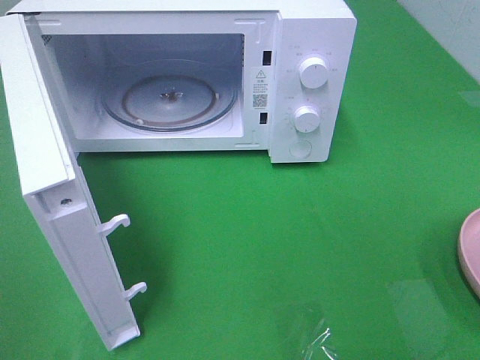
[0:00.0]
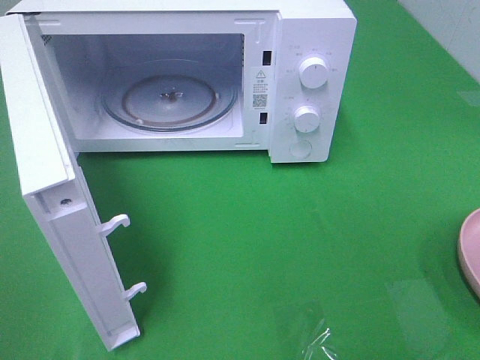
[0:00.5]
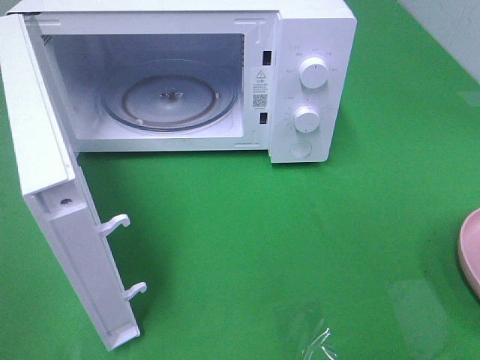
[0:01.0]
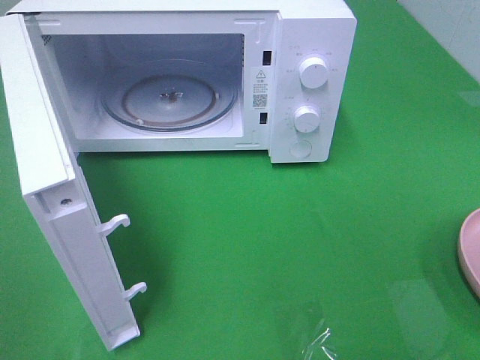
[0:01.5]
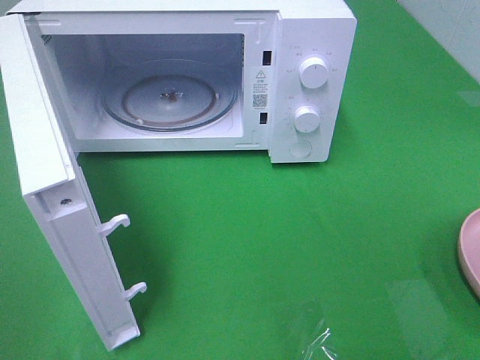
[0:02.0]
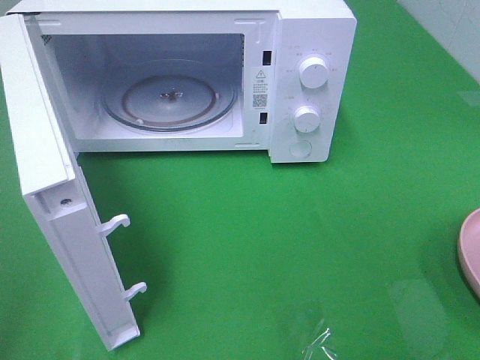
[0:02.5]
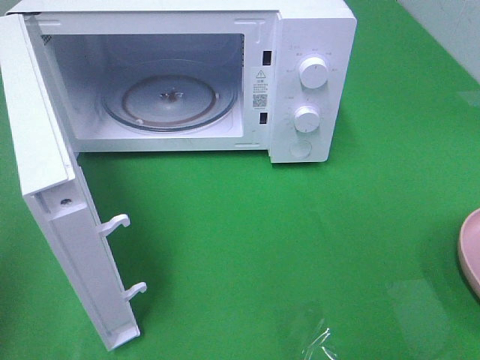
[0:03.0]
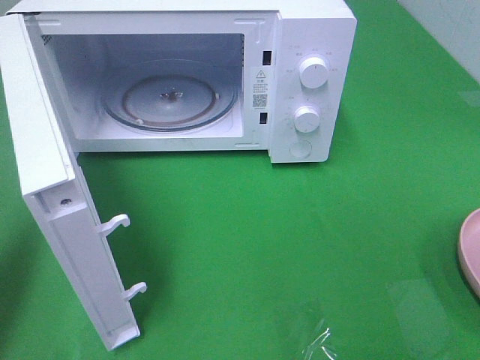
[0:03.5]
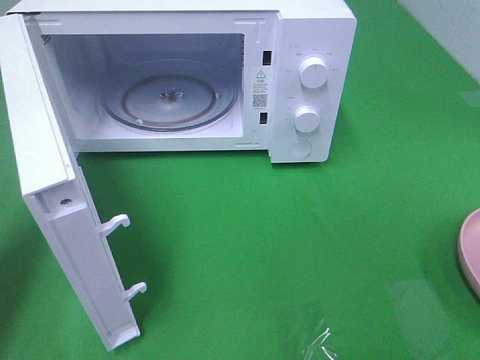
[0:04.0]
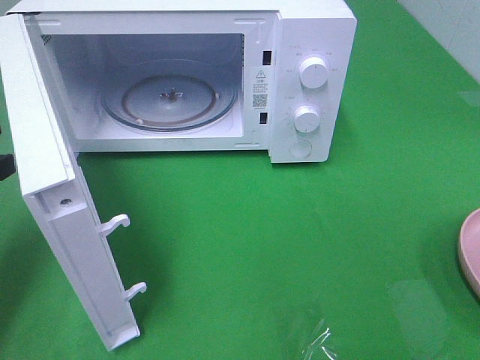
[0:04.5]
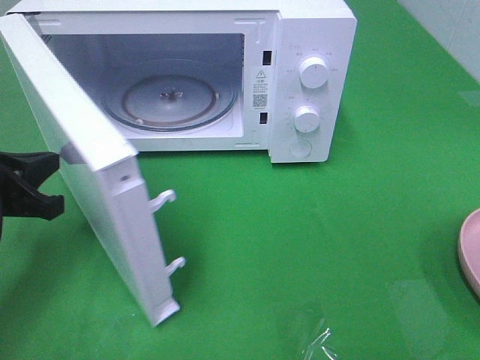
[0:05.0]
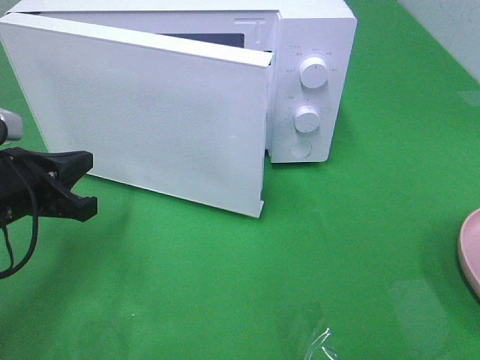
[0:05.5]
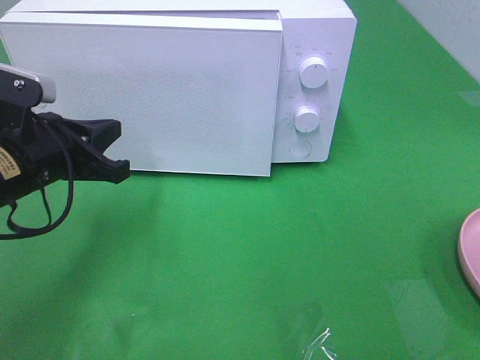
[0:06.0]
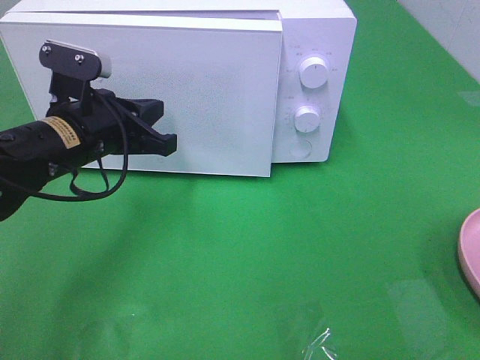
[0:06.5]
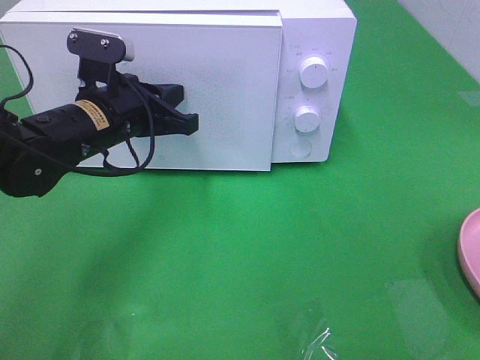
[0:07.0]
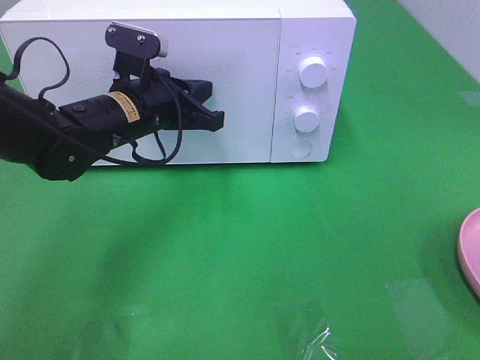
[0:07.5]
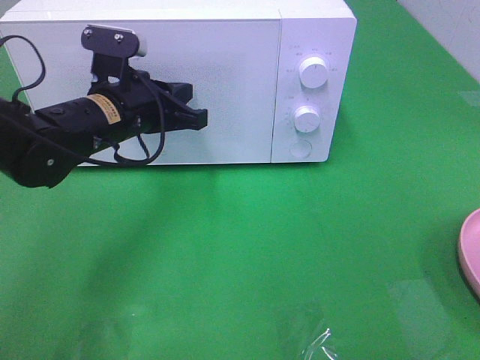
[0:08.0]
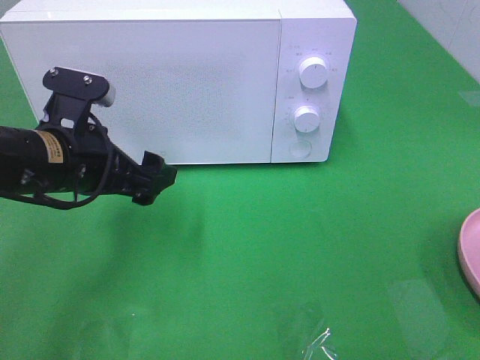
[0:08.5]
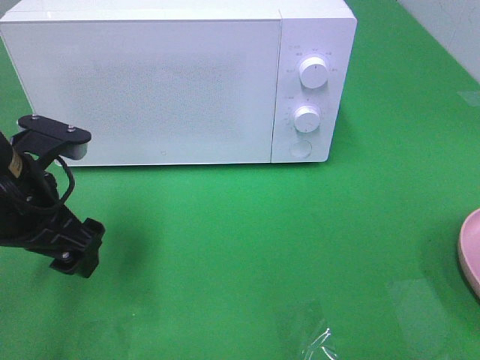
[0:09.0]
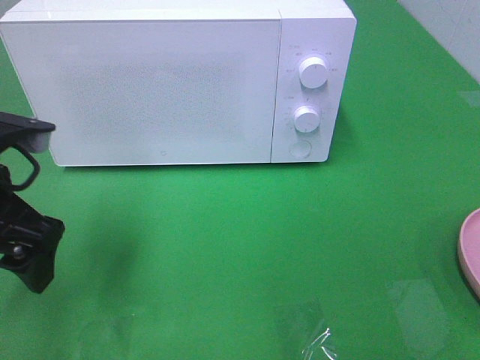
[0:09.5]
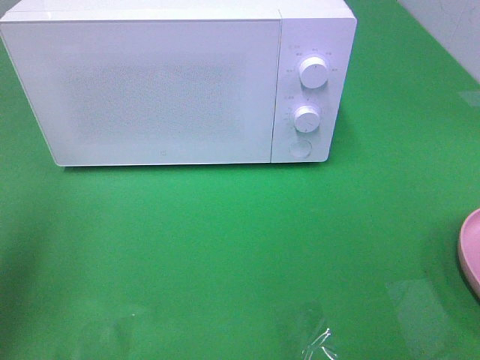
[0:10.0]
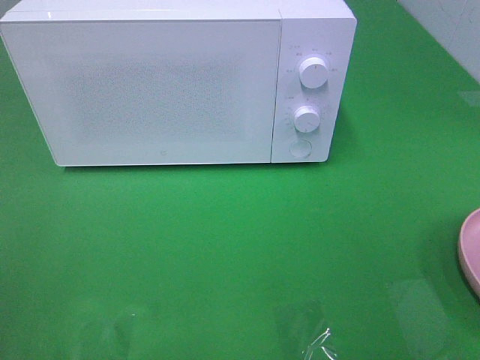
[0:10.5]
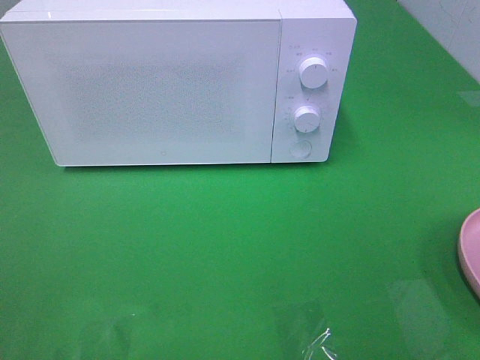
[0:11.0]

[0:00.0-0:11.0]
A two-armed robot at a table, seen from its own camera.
Task of the whole recording: Heat the burger.
Step, 0:00.0 to 0:08.0: Left hand: close the microwave door.
0:00.0 to 0:02.0: The two grippers keep their place.
0:02.0 to 0:03.5: The left gripper travels forward by about 20 cm, and closes its fingers.
0:03.5 to 0:05.5: The left gripper heads downward, to the right and forward, covering about 20 cm.
0:05.5 to 0:07.5: The left gripper shifts roughly 15 cm to the right and forward.
0:07.5 to 0:09.0: The left gripper shifts roughly 15 cm backward and to the left, and opens its fingers.
0:09.0 to 0:11.0: The left gripper travels backward, to the left and upward by some 30 cm.

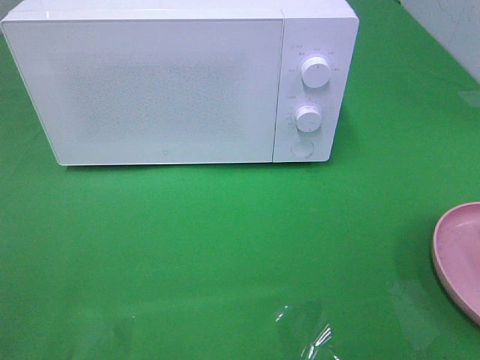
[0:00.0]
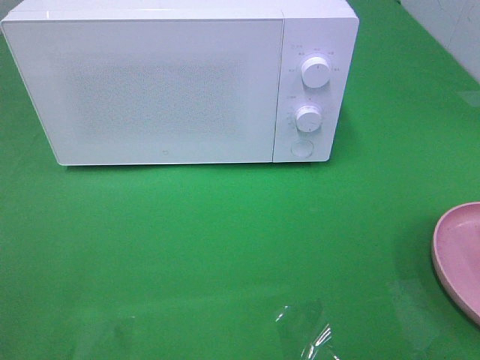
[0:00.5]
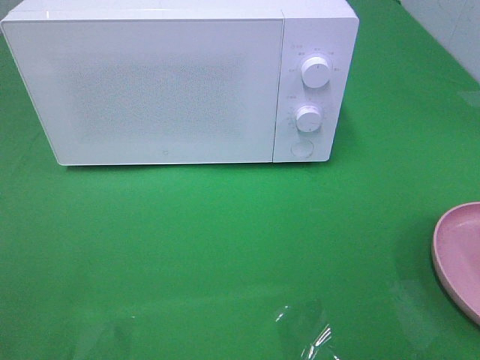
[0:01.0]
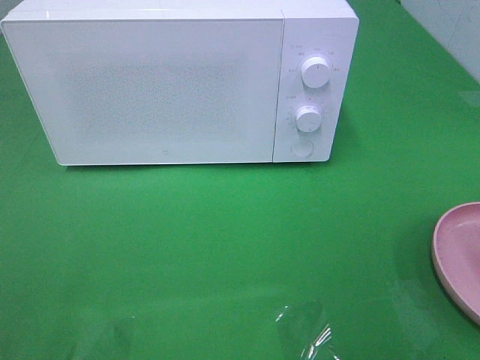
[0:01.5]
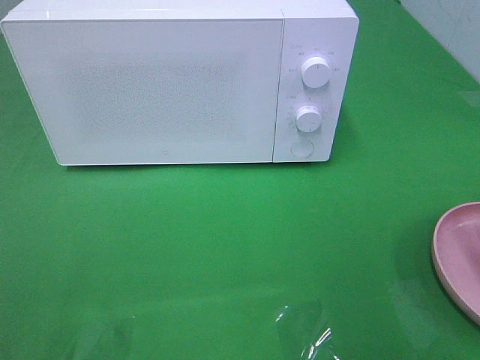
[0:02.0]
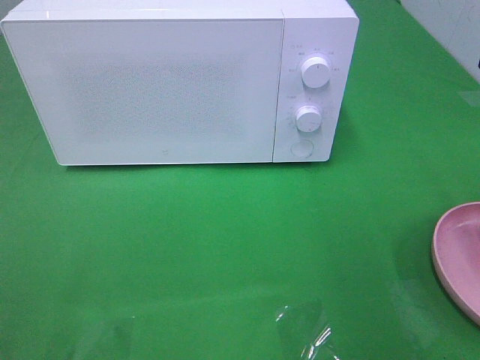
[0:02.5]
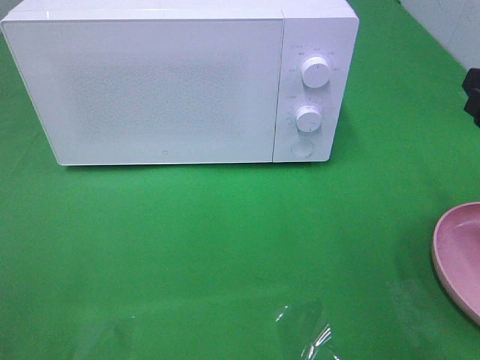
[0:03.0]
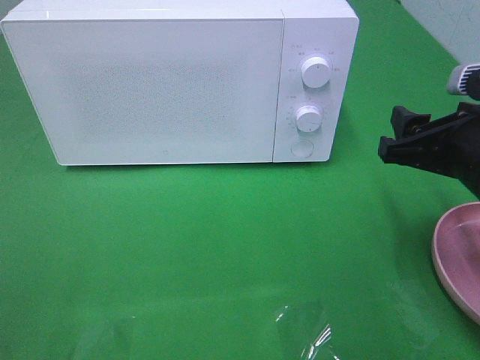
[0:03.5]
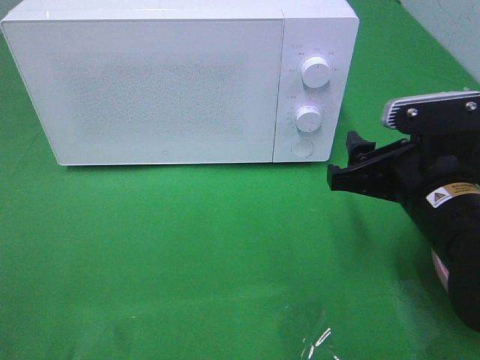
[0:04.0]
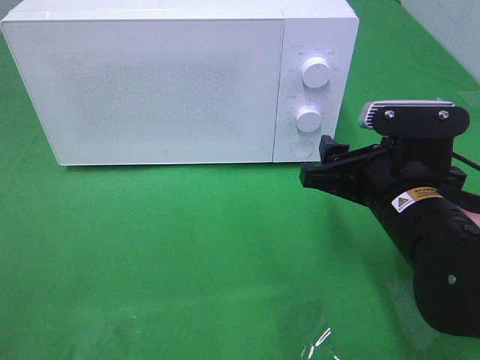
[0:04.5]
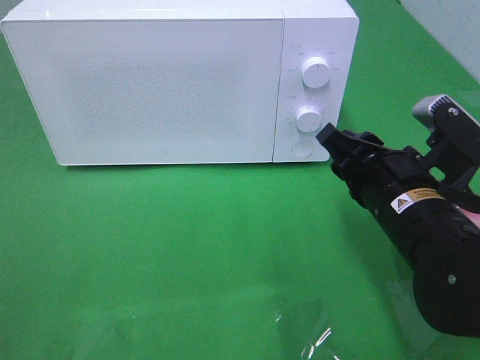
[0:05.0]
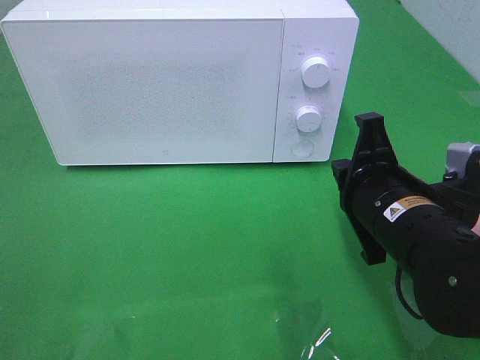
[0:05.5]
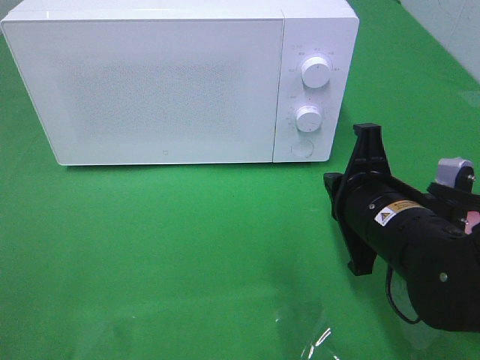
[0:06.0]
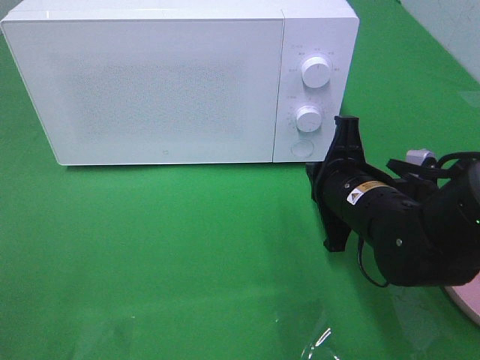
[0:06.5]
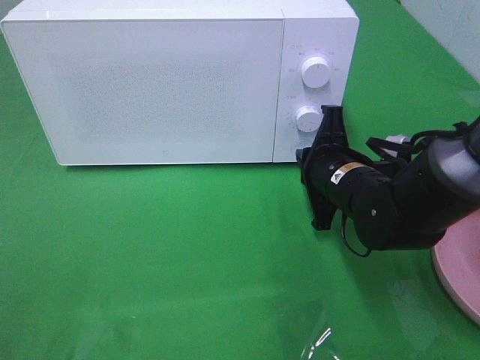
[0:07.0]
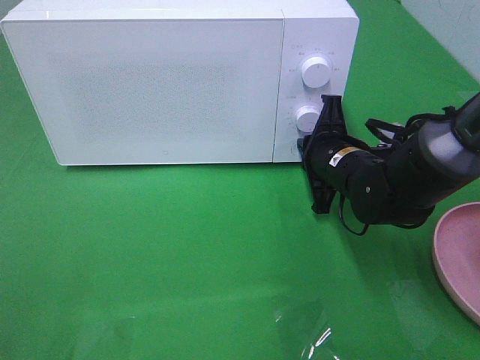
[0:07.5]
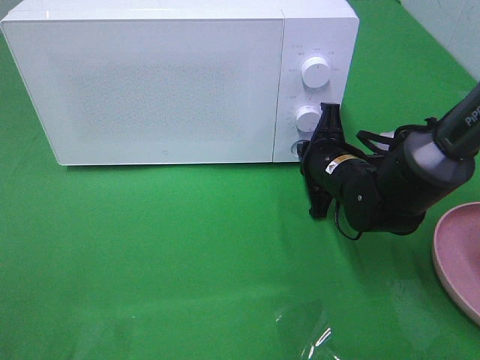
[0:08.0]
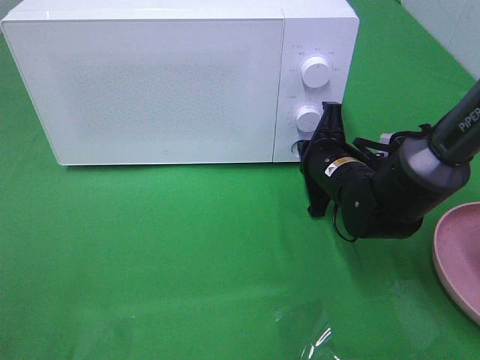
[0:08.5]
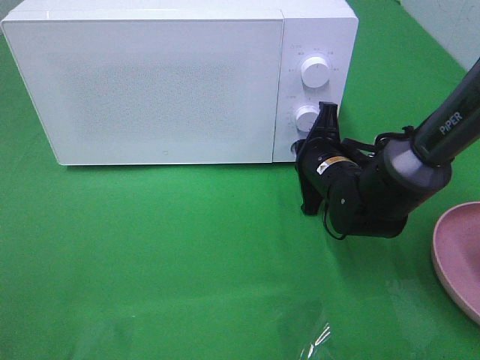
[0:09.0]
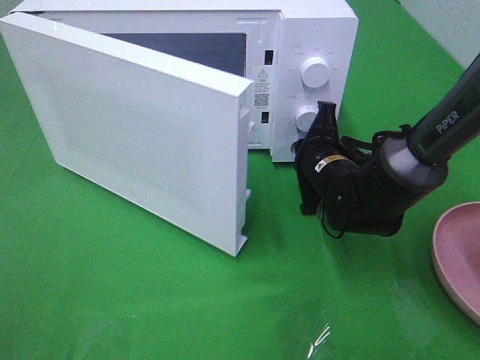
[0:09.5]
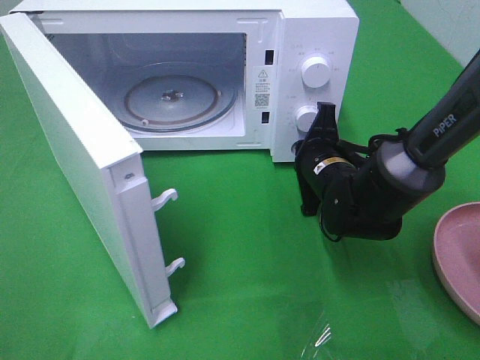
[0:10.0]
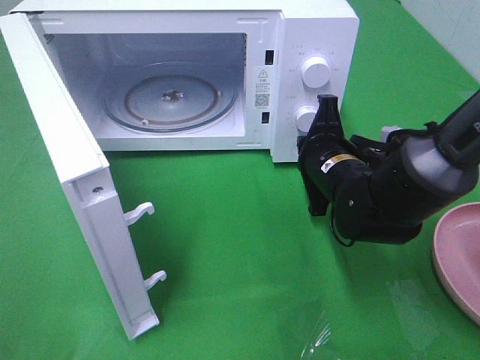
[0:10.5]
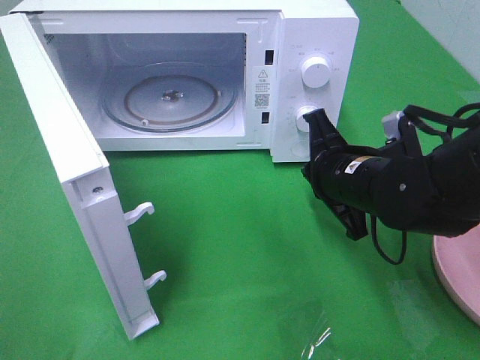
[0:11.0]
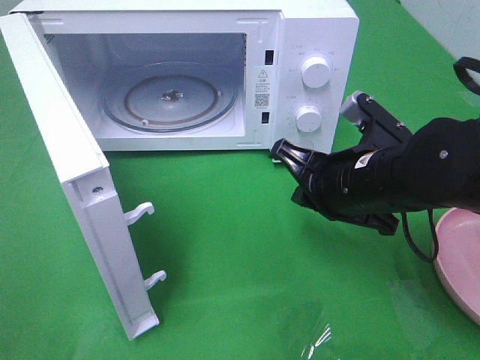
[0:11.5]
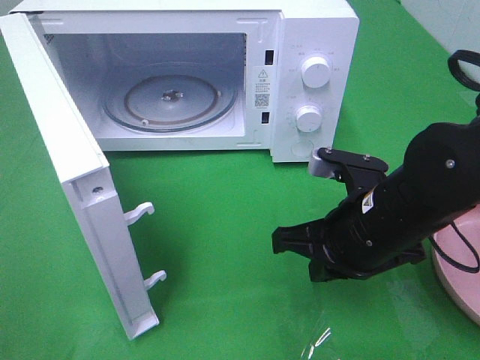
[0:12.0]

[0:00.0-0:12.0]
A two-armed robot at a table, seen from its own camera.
Task of the whole recording: Heat the burger.
Step, 0:00.0 to 0:10.5: Right hand: press the switch.
0:02.0 to 0:04.0: The right gripper shifts some 20 cm downward, to the left and forward.
0:04.0 to 0:06.0: The right gripper closes its fingers.
0:06.0 to 0:08.0: The right gripper goes about 15 cm forward and downward.
0:10.0 to 0:12.0: The right gripper moves backward and upward, some 15 cm.

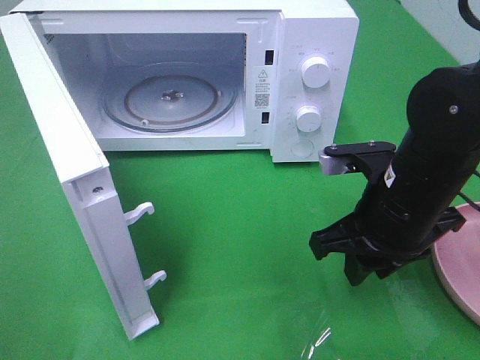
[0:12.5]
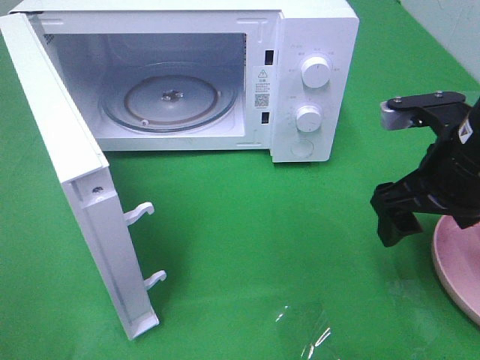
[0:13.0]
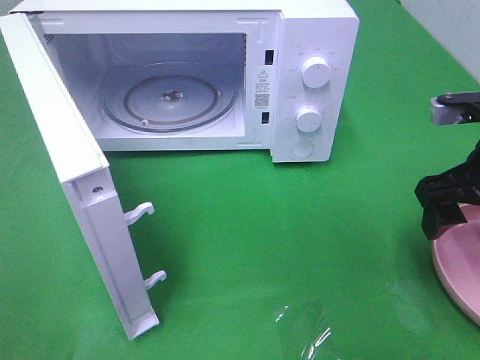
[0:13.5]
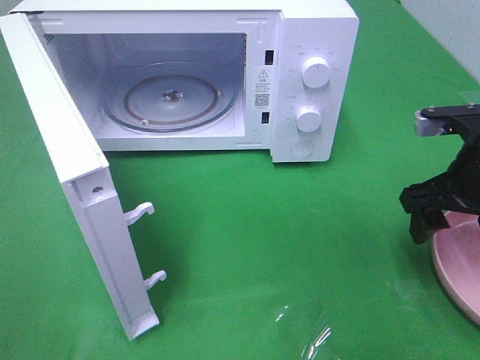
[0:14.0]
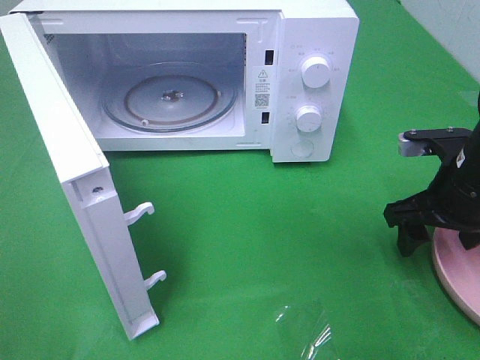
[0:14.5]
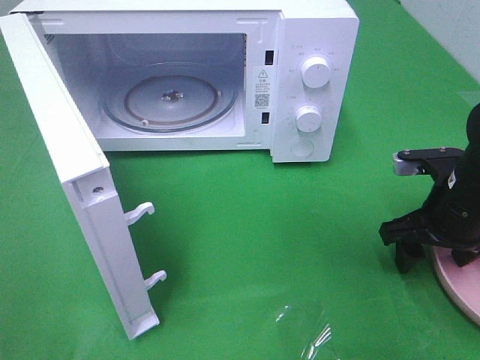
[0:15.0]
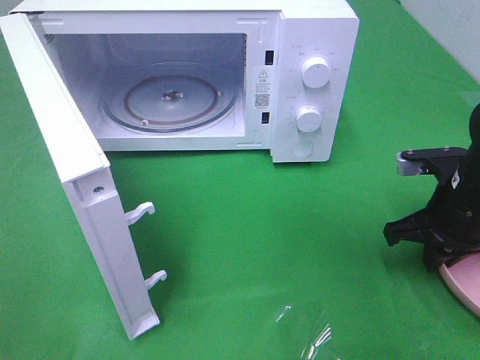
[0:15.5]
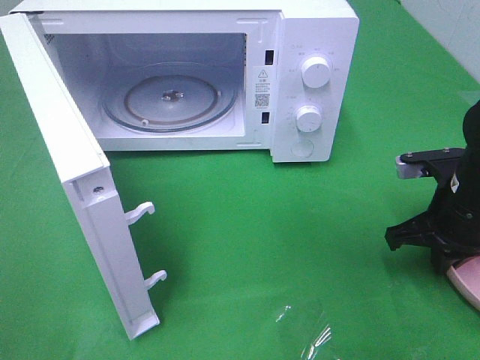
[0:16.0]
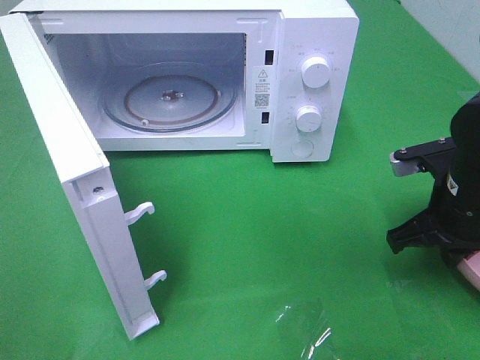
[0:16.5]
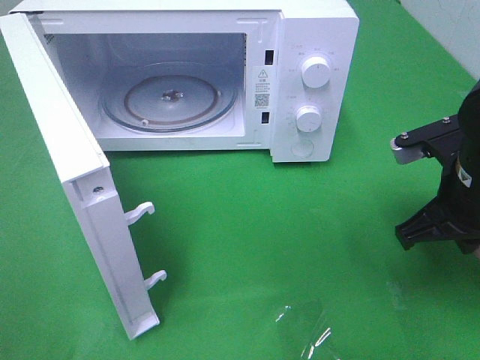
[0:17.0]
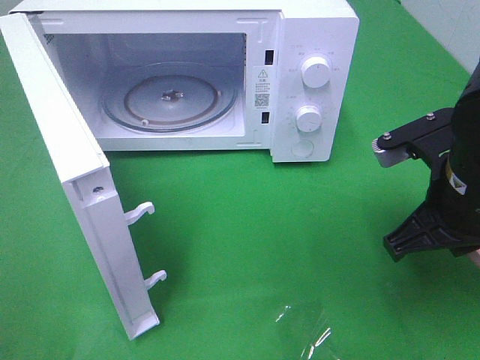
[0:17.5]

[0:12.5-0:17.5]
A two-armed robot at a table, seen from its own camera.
Task of the whole recording: Heat the burger.
Step, 0:12.5 to 0:16.0: Right hand: grab the plate with the hamburger.
0:12.5 to 0:15.0: The right gripper travels to the right by approximately 10 cm.
0:15.0 to 0:17.5: The right gripper is displaced upward, to the left and backward by approximately 10 cm, and closes.
